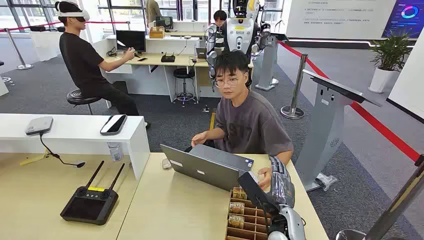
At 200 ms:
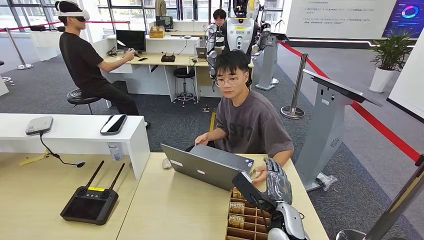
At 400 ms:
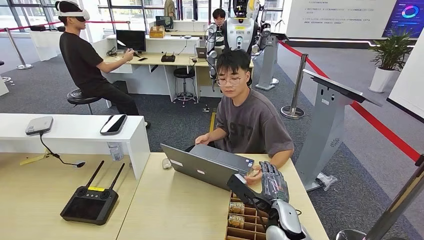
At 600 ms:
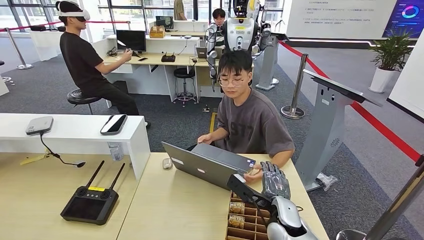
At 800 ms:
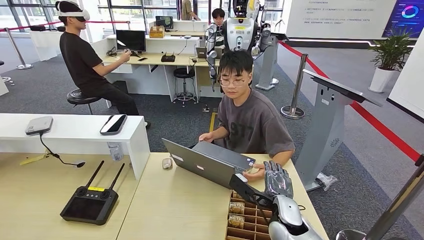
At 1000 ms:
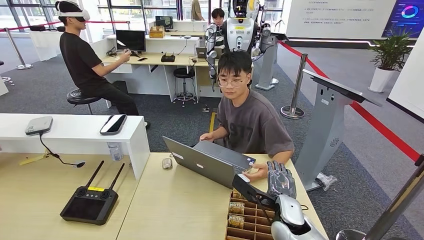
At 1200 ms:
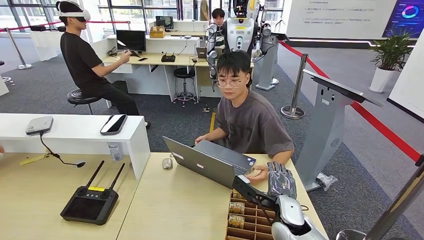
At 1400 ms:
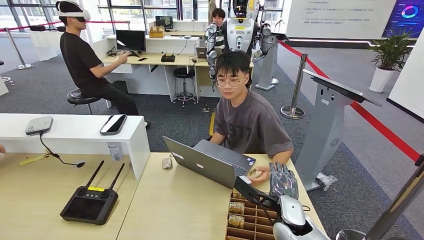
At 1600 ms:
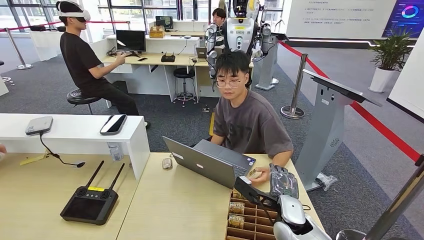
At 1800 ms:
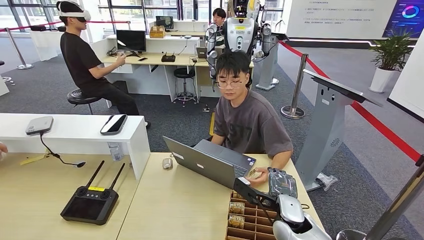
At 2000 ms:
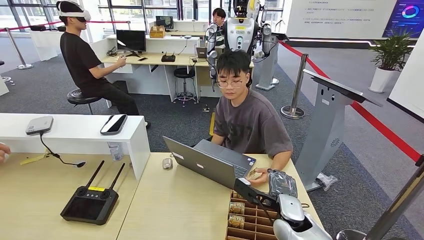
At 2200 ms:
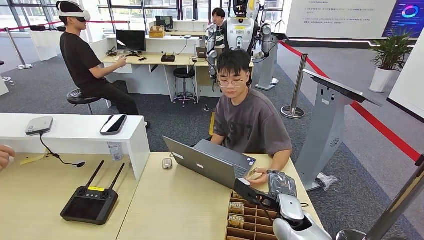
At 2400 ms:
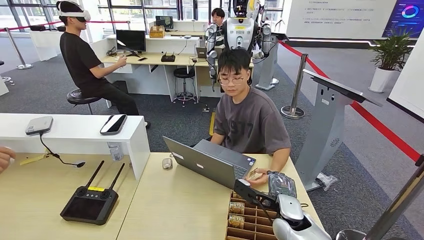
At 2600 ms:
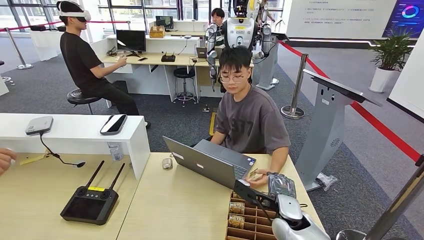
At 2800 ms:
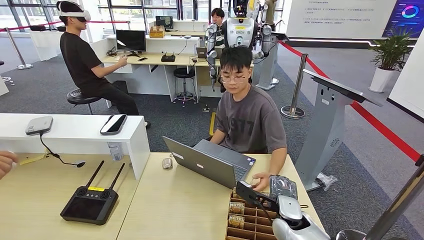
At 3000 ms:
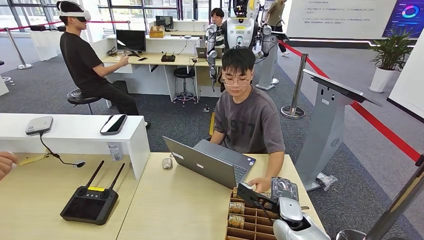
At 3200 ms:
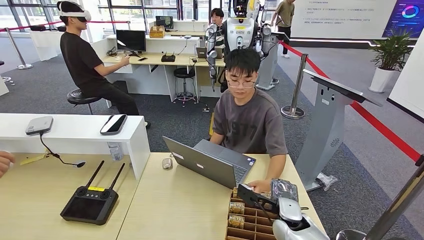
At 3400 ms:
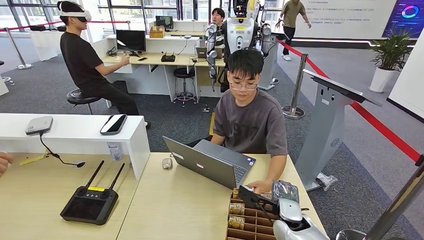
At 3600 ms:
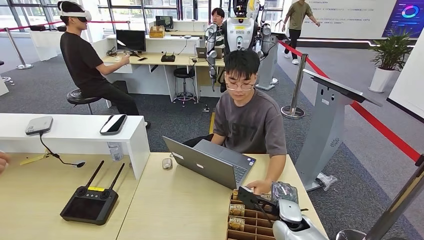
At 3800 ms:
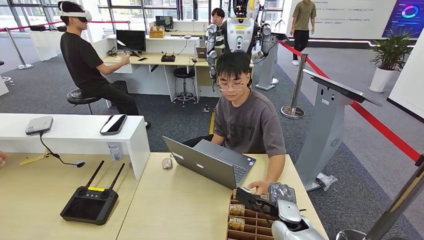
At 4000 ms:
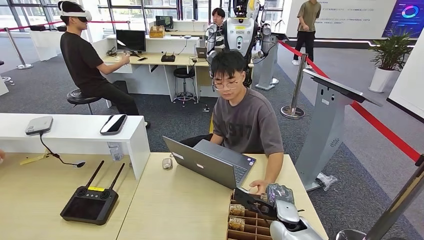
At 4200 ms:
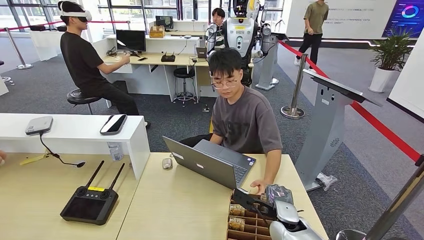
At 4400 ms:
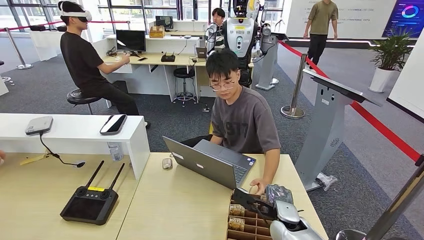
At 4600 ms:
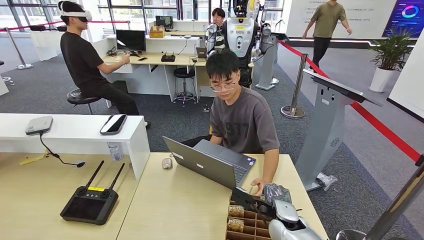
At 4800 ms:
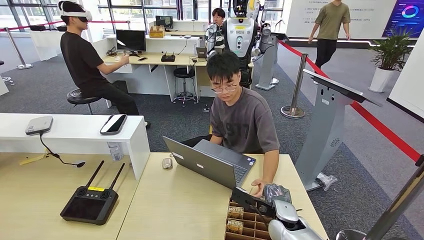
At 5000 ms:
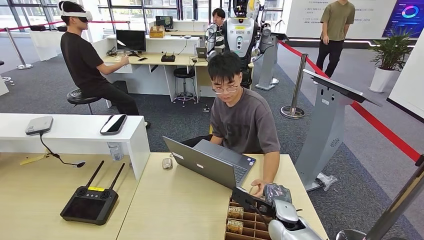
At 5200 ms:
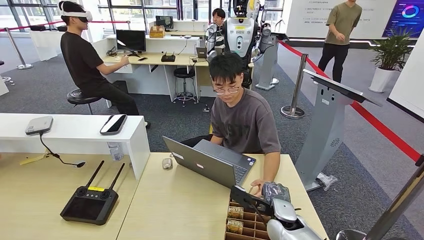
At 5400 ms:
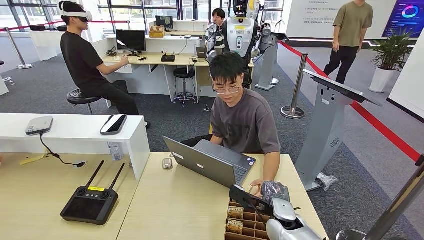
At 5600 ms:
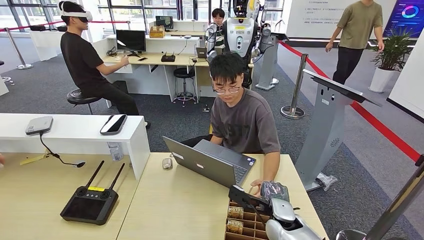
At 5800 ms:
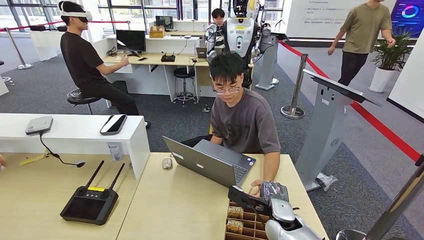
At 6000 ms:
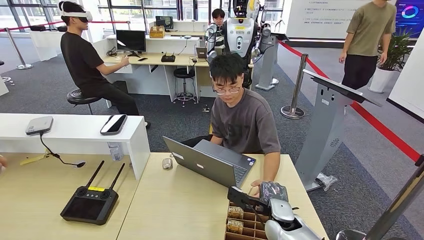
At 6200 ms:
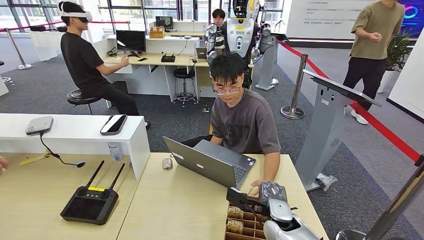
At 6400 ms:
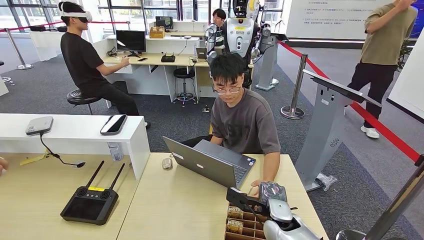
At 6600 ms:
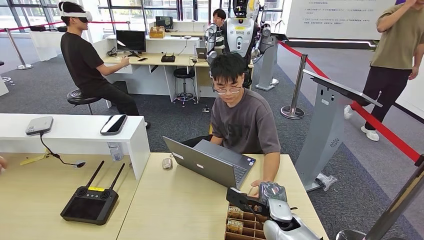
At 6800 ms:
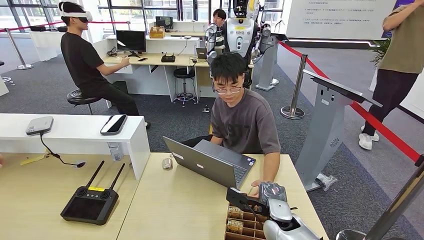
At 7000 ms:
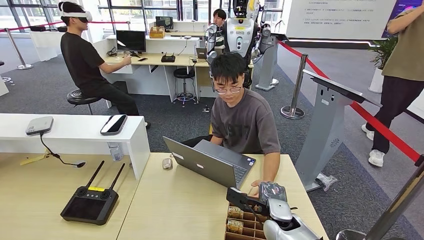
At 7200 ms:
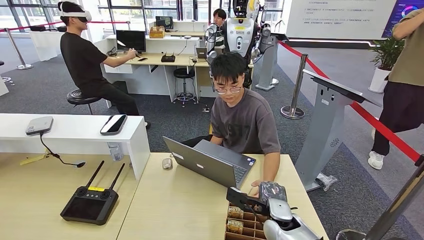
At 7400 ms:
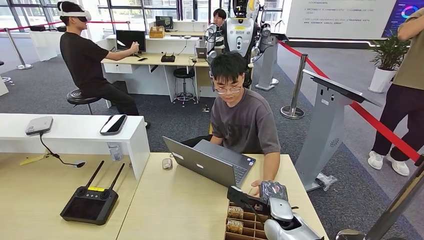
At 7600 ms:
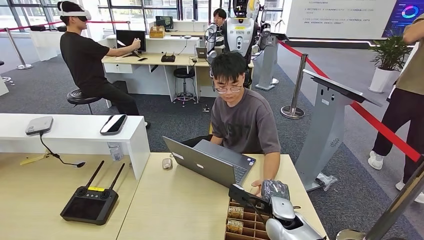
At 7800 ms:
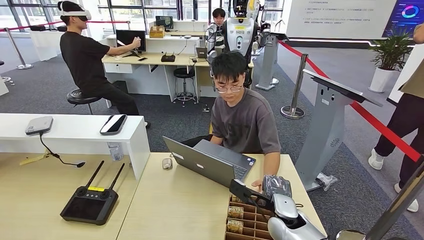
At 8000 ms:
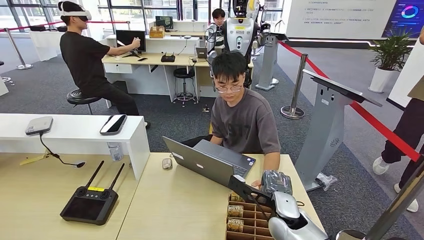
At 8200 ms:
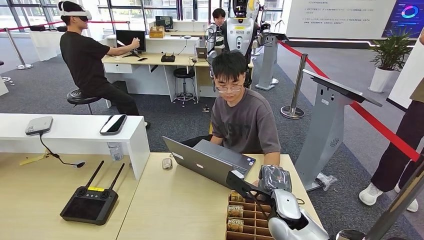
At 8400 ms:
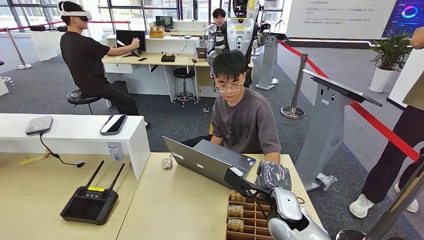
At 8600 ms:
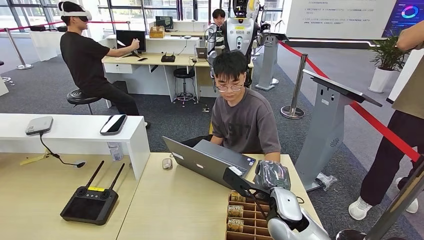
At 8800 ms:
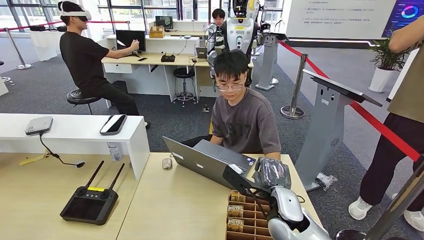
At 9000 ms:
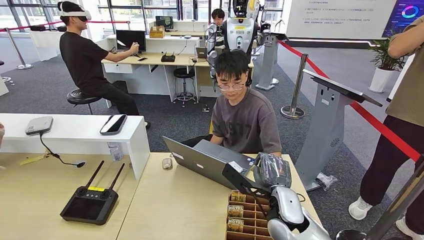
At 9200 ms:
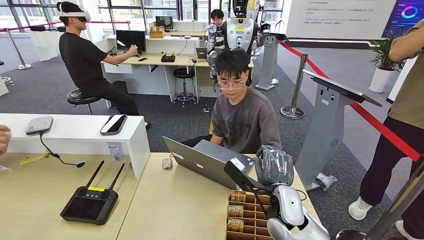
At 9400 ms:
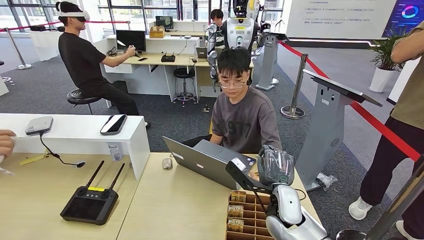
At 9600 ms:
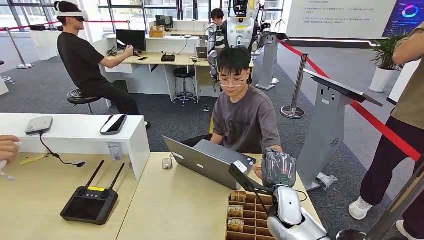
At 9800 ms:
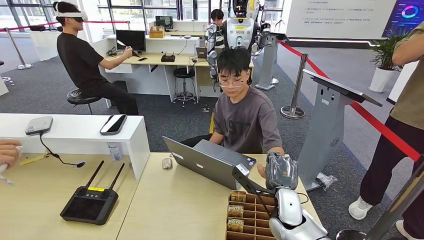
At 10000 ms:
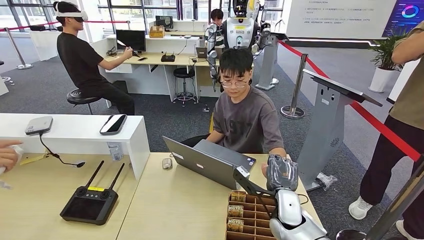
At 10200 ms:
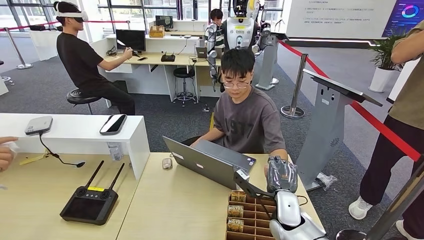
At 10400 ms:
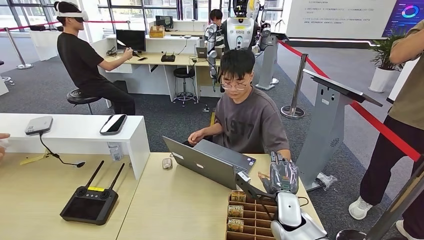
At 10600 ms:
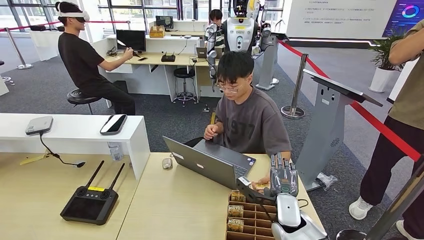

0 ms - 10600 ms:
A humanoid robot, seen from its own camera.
Step, 0 ms - 8800 ms: Pick up the key card from the card box.
Step, 9000 ms - 10600 ms: Hand the key card to the target.
1600 ms - 4600 ms: There are only small adjustments of the hands.
4600 ms - 6000 ms: Neither hand changes place.
6000 ms - 7600 ms: Both hands stay about where they are.
7600 ms - 9000 ms: The right hand travels upward by some 5 cm.
9000 ms - 10600 ms: The right hand is displaced downward by approximately 5 cm.
